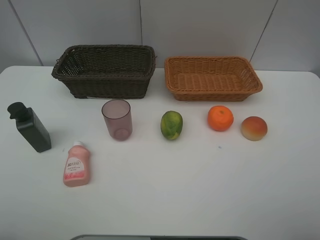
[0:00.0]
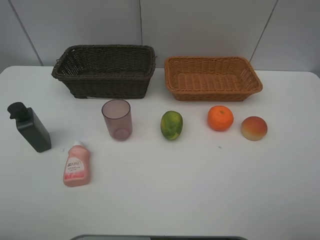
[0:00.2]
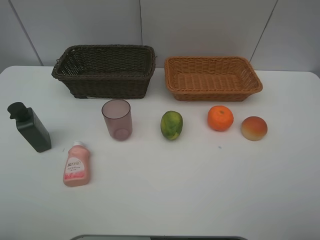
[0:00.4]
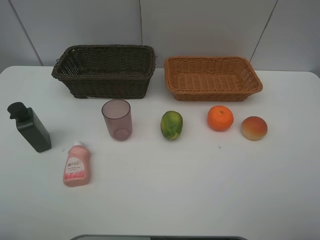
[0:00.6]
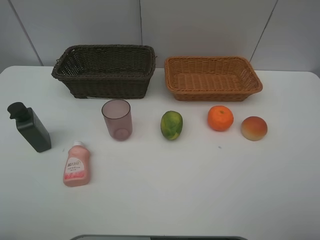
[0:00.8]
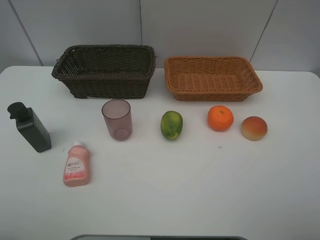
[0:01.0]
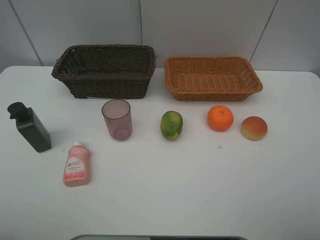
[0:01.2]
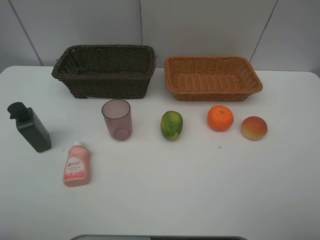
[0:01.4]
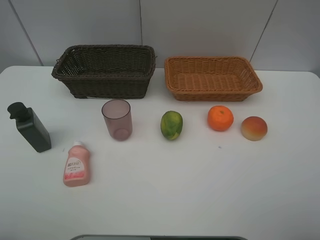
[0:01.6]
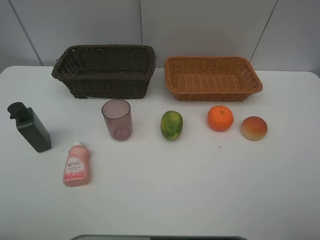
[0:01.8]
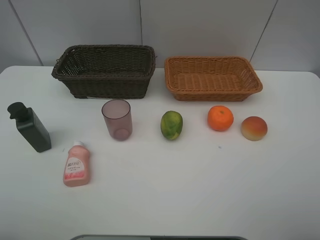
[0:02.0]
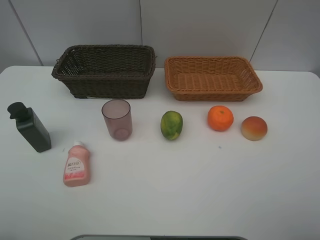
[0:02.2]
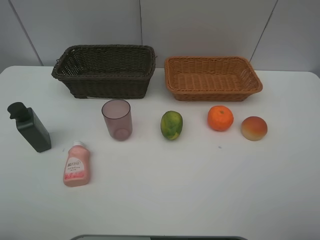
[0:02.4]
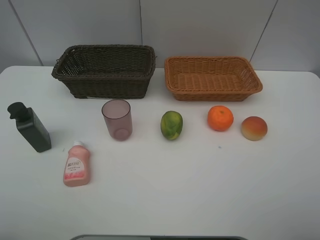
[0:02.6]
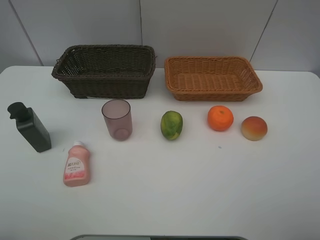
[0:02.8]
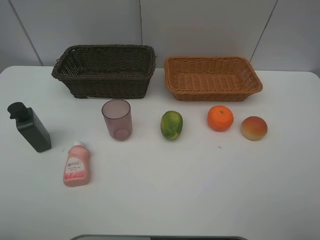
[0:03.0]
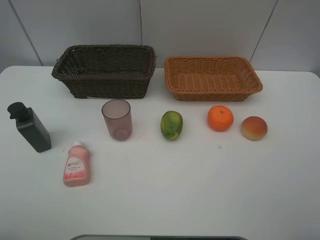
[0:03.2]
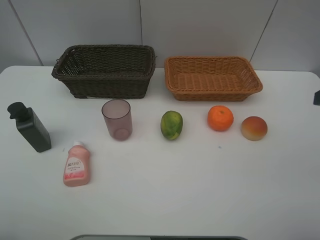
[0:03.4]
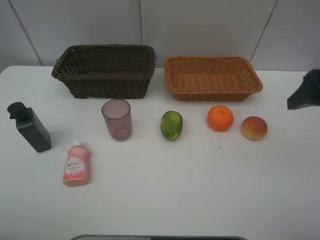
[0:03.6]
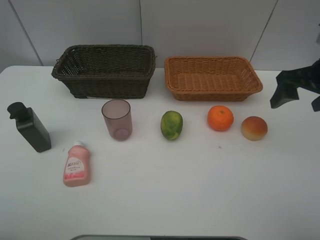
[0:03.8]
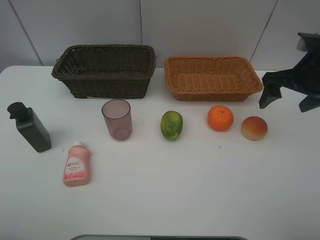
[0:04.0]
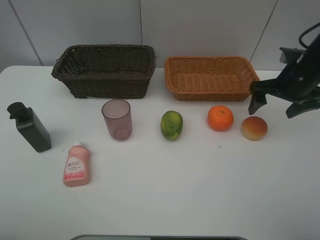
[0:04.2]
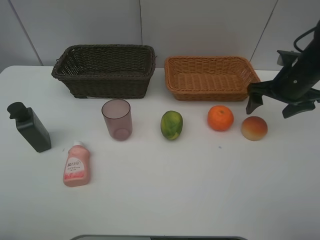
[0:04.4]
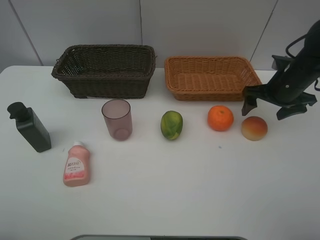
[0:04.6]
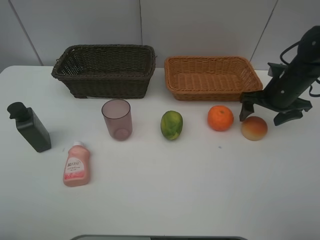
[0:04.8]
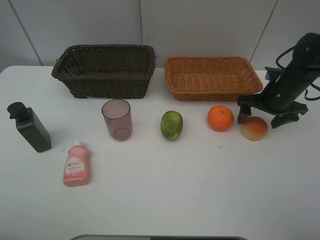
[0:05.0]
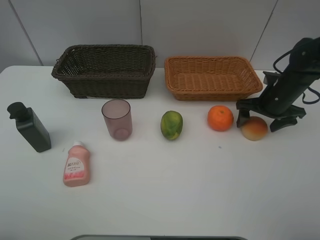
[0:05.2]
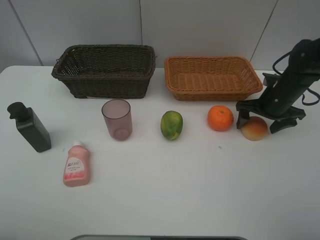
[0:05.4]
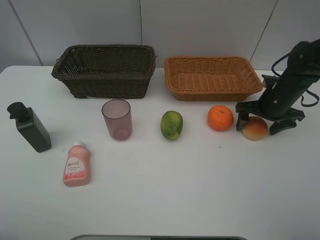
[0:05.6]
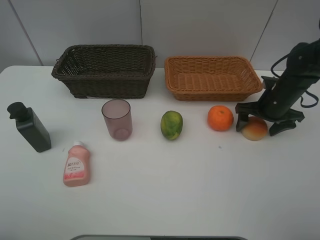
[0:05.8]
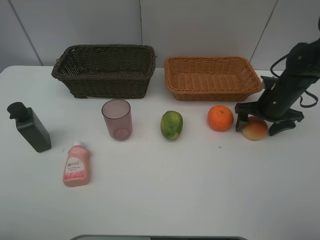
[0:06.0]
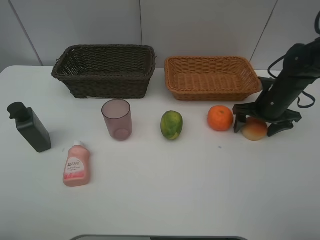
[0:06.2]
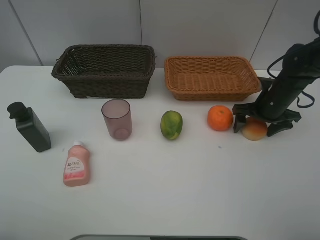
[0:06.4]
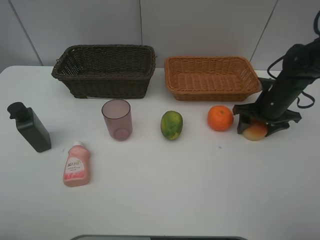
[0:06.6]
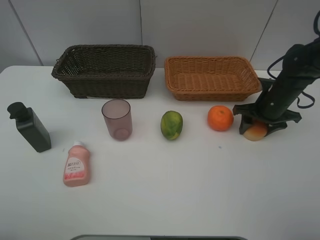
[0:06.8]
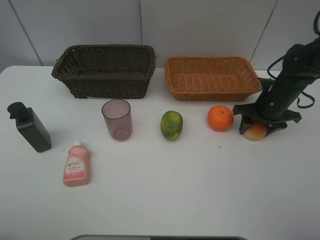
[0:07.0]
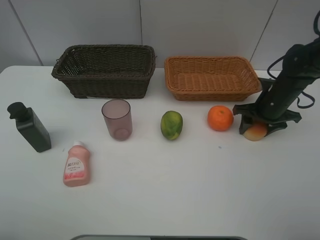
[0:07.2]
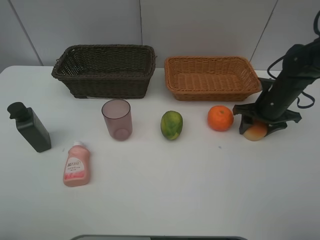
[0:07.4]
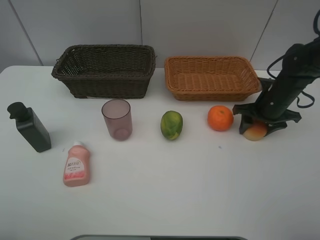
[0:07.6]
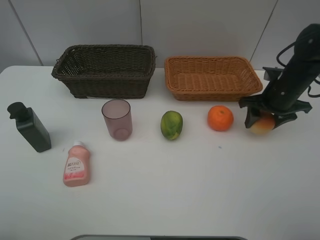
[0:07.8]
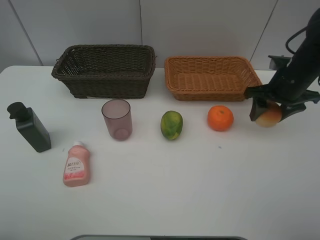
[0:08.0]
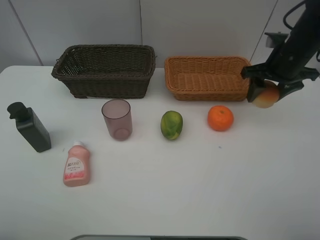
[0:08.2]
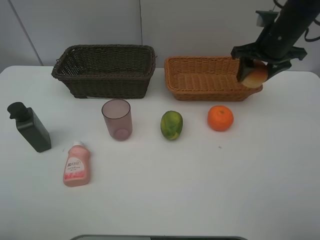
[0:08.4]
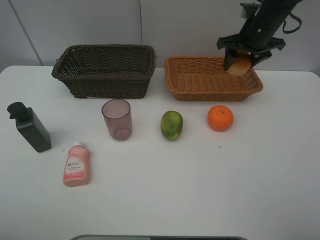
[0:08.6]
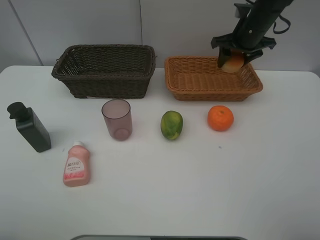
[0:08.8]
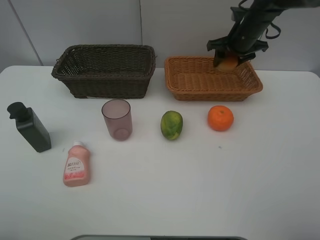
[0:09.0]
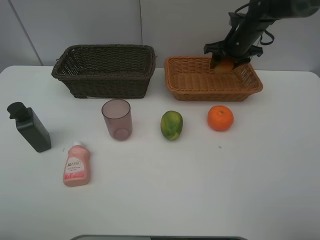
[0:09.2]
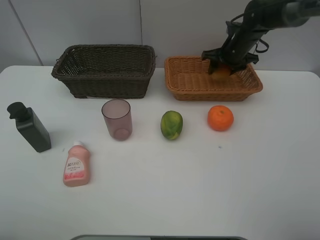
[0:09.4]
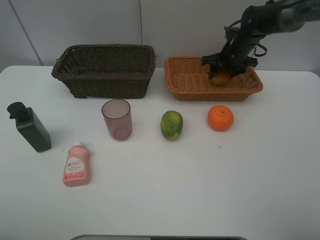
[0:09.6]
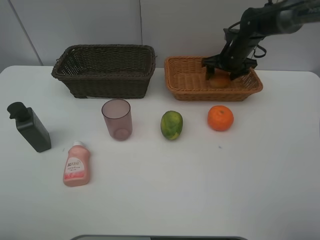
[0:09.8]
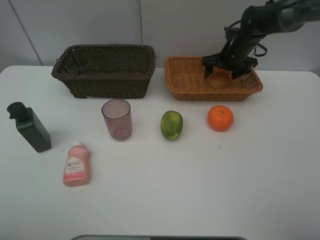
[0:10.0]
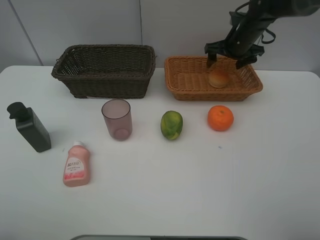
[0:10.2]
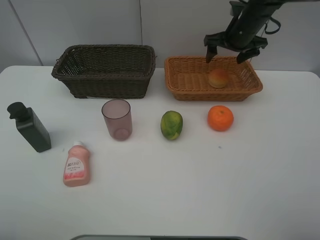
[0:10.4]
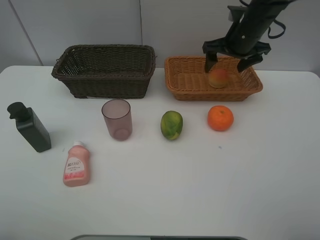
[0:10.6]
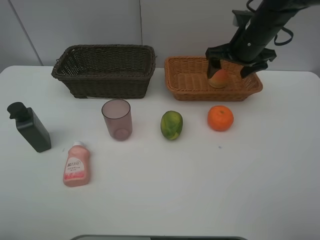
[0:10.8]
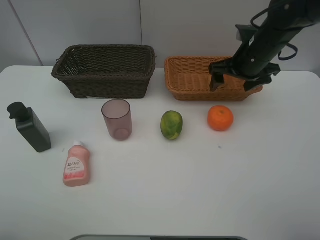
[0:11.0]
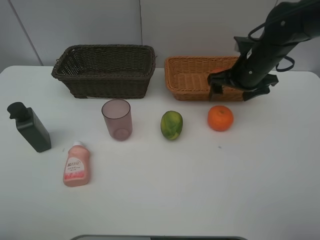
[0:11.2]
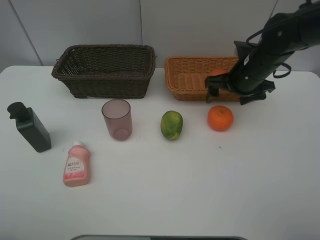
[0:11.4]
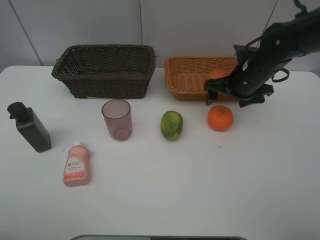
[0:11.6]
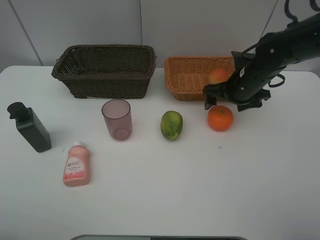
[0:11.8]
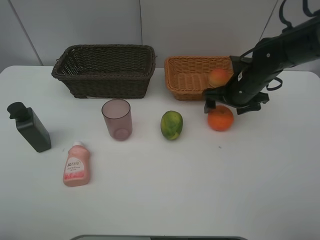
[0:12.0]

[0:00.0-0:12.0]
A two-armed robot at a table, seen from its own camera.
Task of the whole recording: place multiple objects separately in different baskets.
0:00.0 to 0:01.6: The two grippers keep their place.
0:03.0 to 0:04.4: The right gripper moves forward and downward, approximately 30 cm.
0:04.4 to 0:06.0: The right gripper heads downward, covering about 5 cm.
0:06.0 to 0:07.6: The right gripper closes its fingers.
0:07.6 to 0:09.0: The right gripper shifts about 15 cm forward, upward and to the left.
0:09.0 to 0:10.4: The right gripper moves approximately 5 cm downward and comes back, and opens its fingers.
0:10.4 to 0:12.0: The right gripper moves backward and downward, some 15 cm.

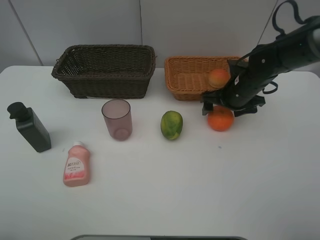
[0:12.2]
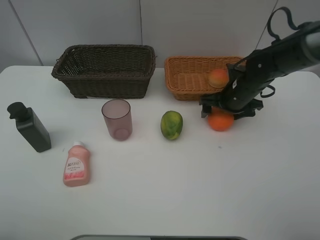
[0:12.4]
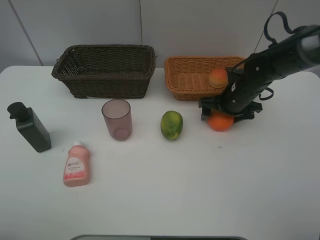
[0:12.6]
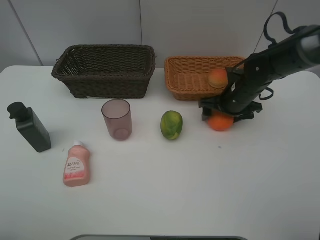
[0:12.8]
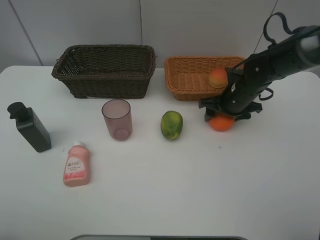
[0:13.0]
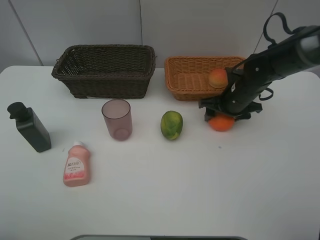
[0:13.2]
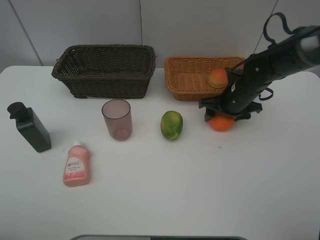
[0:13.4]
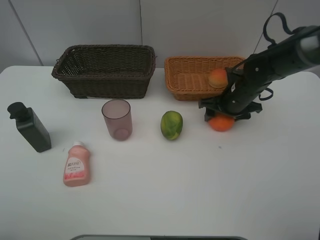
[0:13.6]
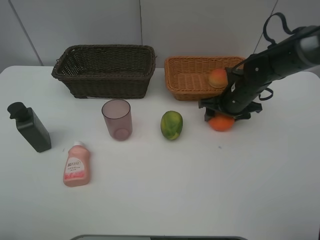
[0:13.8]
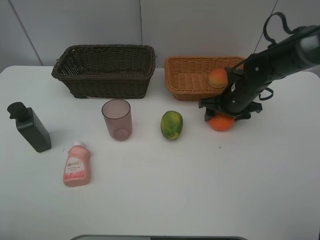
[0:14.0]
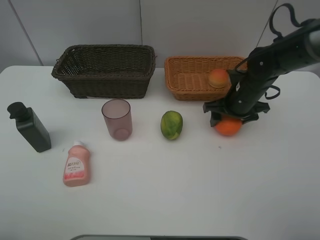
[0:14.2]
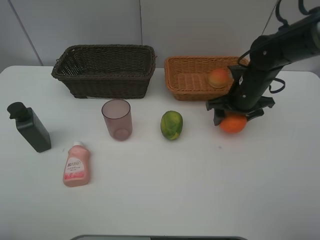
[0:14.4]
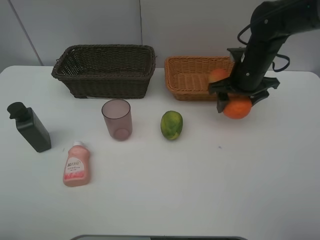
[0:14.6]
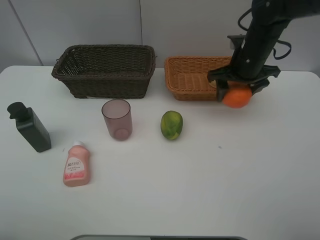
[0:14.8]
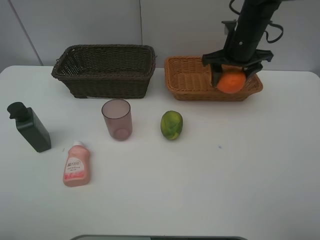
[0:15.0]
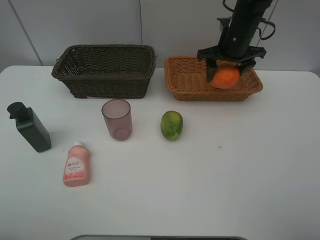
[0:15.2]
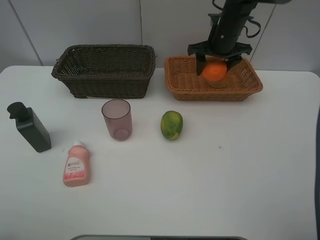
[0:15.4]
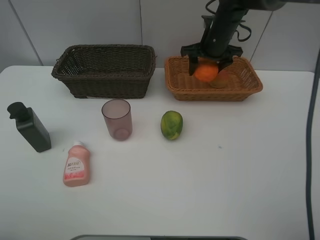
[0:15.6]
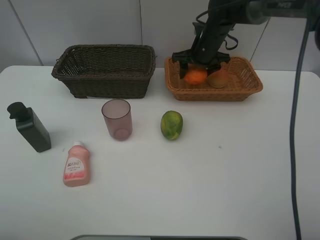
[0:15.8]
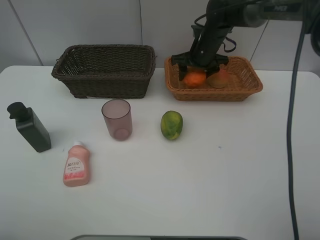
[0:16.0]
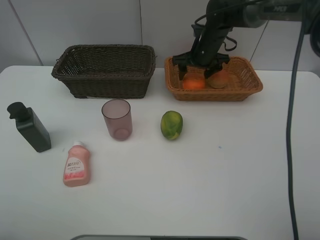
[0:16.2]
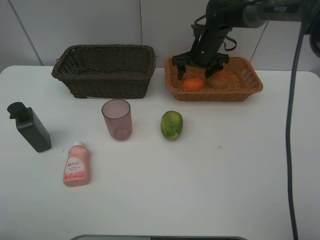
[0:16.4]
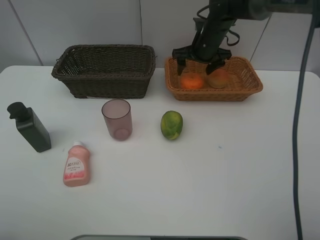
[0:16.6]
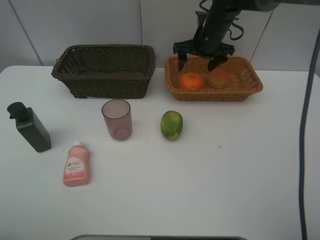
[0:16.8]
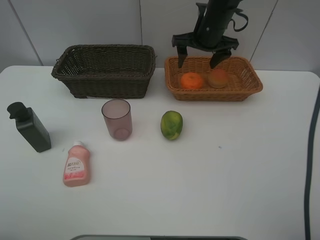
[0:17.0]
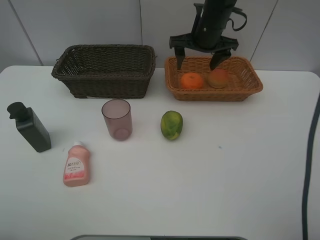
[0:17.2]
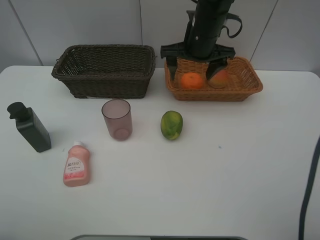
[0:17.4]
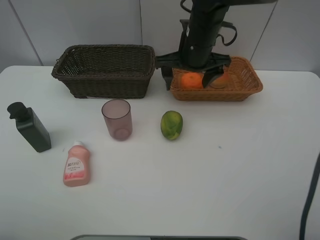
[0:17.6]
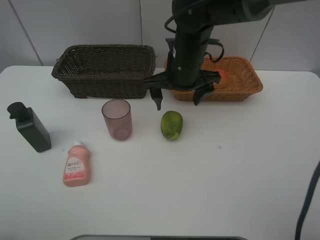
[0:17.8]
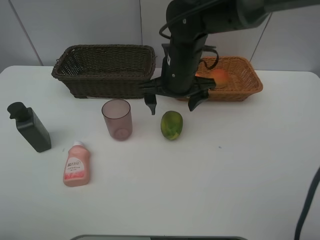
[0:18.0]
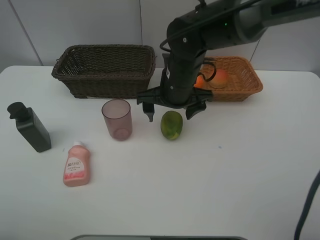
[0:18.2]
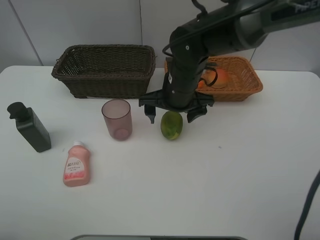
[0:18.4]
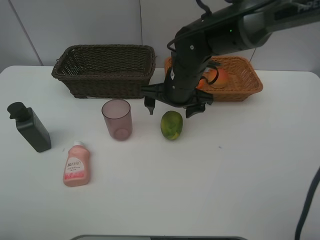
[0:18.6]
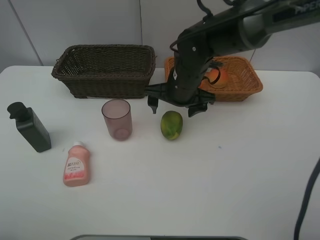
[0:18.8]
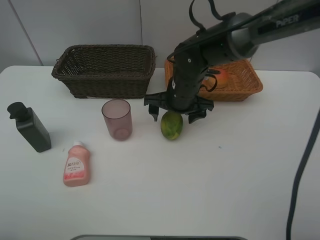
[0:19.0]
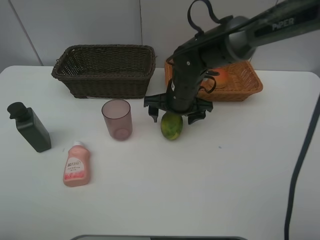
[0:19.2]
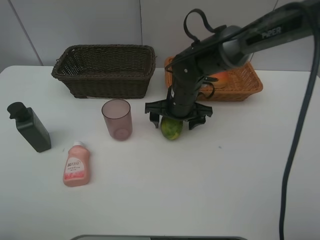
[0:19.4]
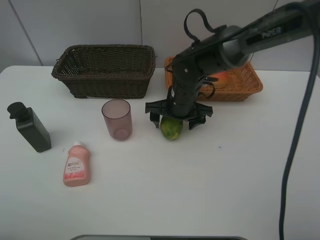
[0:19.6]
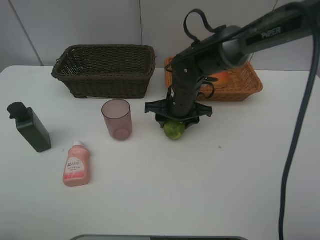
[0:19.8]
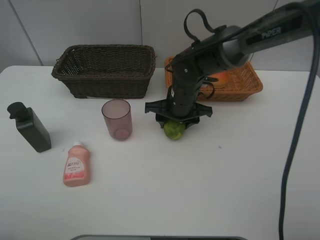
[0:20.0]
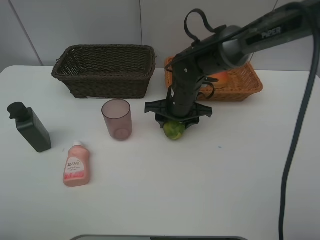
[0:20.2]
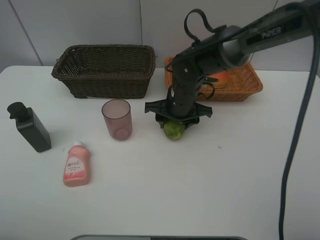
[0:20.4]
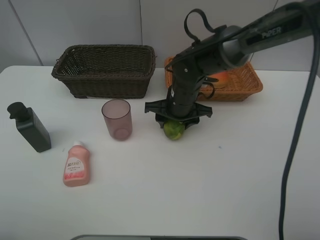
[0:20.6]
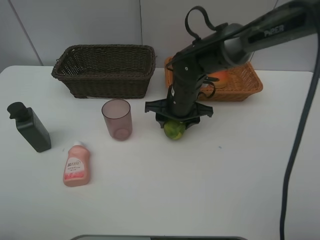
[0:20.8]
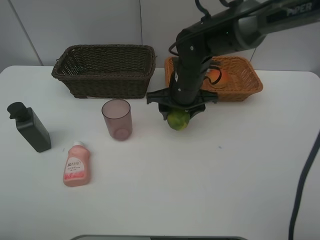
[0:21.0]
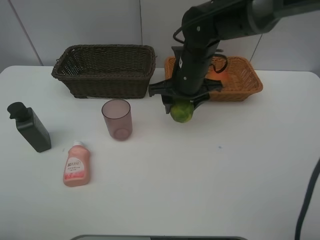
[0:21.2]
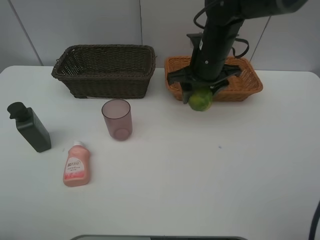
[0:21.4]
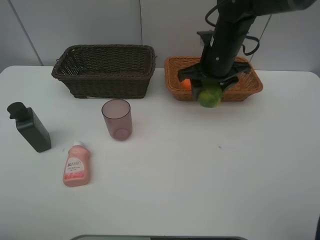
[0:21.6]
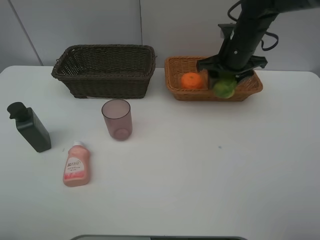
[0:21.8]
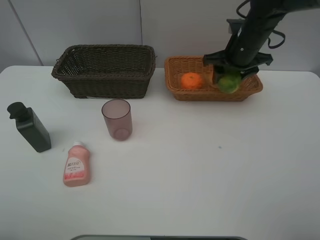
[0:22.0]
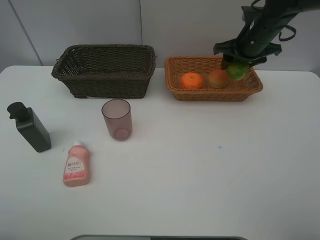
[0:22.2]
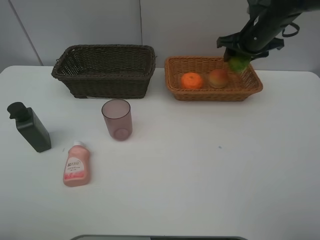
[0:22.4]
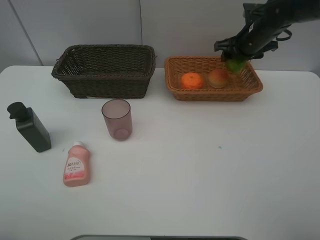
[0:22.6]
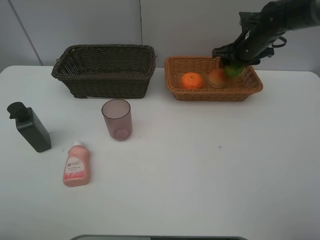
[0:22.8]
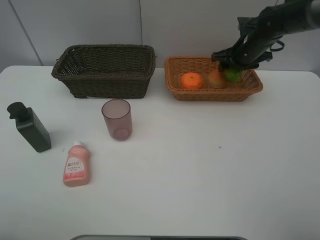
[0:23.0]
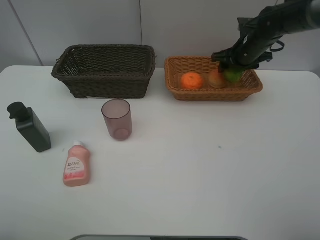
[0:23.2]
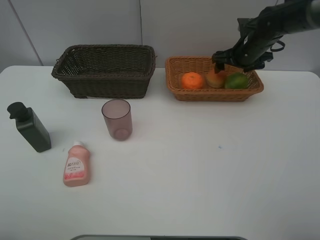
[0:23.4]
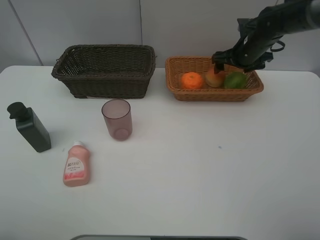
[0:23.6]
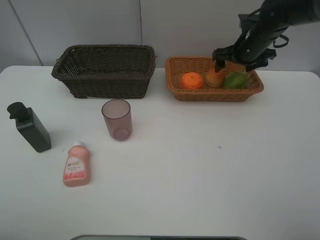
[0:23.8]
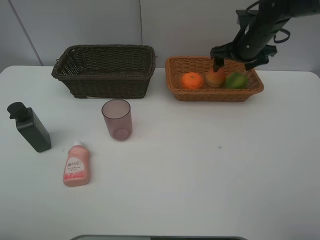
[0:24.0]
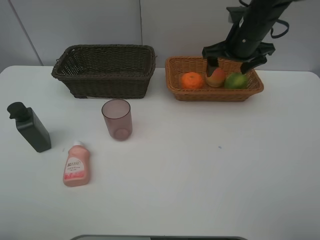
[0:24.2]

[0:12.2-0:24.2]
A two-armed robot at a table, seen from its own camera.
Task of the whole recording: place multiple objects separately in different baskets.
0:12.2 to 0:13.8: The right gripper closes up.
0:13.8 to 0:15.2: The right gripper is displaced upward and forward by about 15 cm.
0:15.2 to 0:16.6: The right gripper changes place by about 5 cm, and opens.
0:16.6 to 0:18.2: The right gripper moves backward and to the left, some 20 cm.
0:18.2 to 0:19.8: The right gripper heads downward, covering approximately 5 cm, and closes.
0:19.8 to 0:21.2: The right gripper travels upward by roughly 10 cm.
0:21.2 to 0:22.6: The right gripper moves to the right and forward, approximately 20 cm.
0:22.6 to 0:24.2: The right gripper goes some 10 cm backward and to the left, and opens up.
